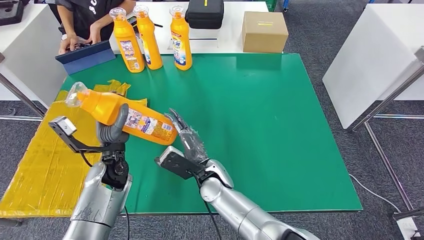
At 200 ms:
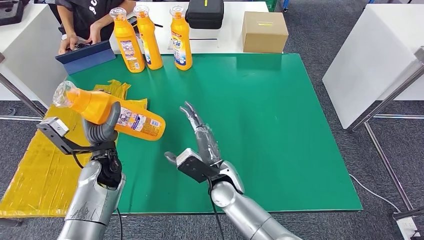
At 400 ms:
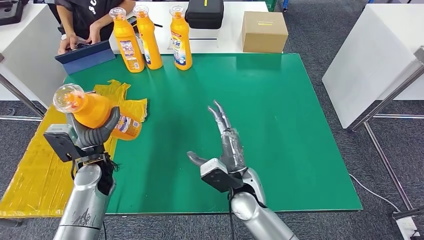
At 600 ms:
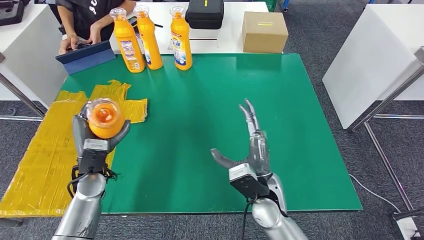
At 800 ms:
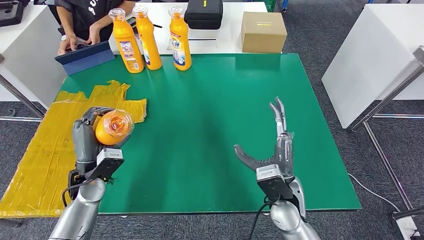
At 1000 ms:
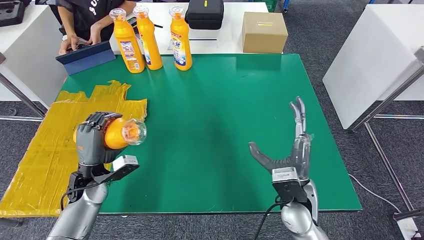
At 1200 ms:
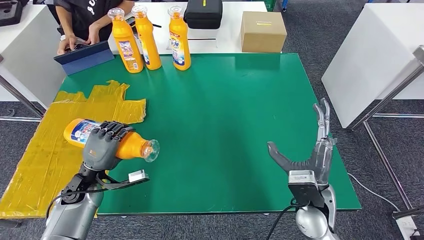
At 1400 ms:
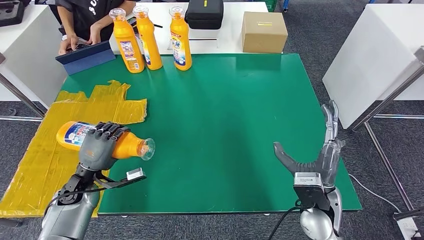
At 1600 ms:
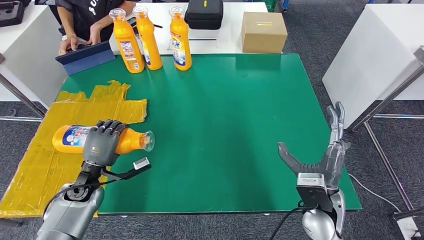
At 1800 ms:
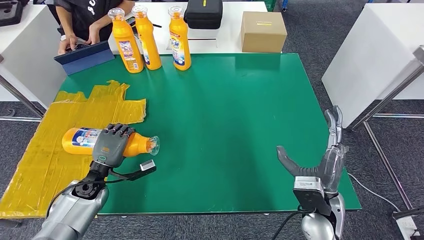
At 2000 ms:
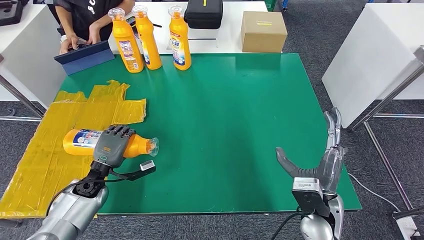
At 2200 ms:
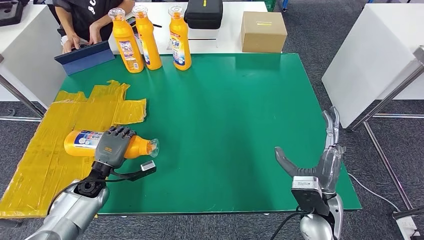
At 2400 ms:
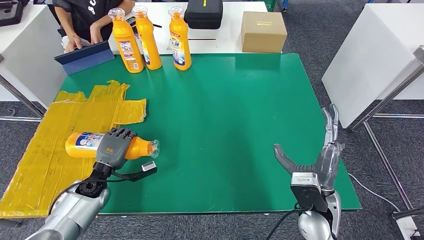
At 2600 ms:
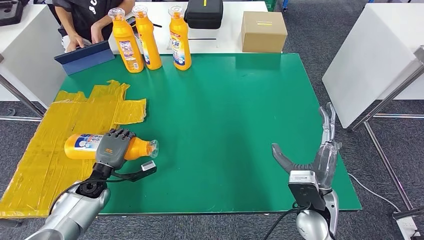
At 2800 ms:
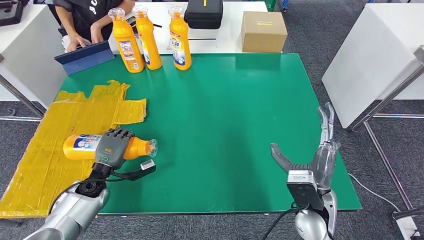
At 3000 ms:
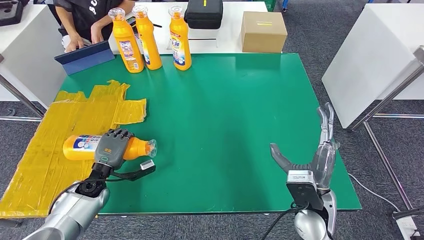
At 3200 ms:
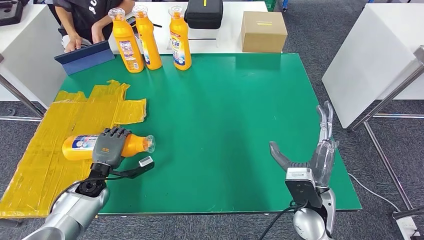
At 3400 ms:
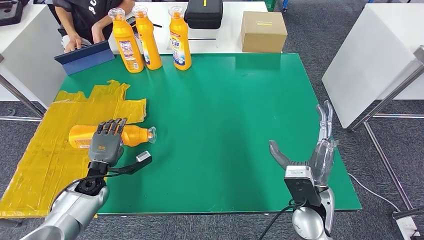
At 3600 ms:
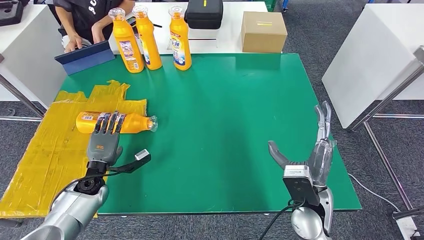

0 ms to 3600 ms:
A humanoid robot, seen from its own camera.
Step, 0 ms to 3600 ms: Flip the fast-moving consumer goods bottle to the front side.
1800 ms to 3600 ms: The hands stay close to where they were, moving slightly.
